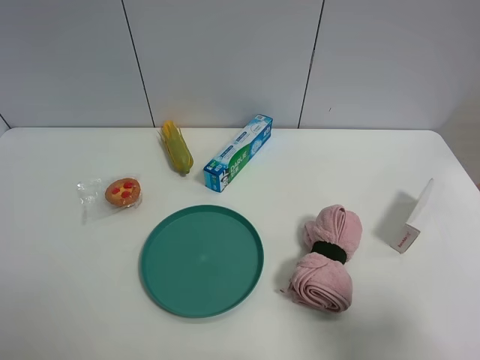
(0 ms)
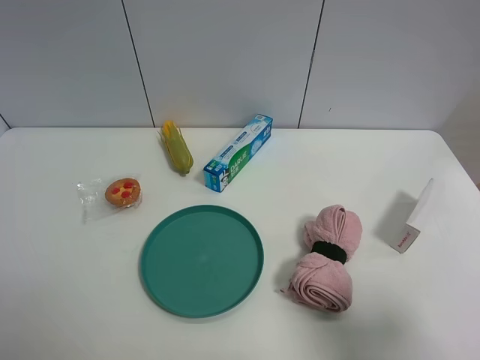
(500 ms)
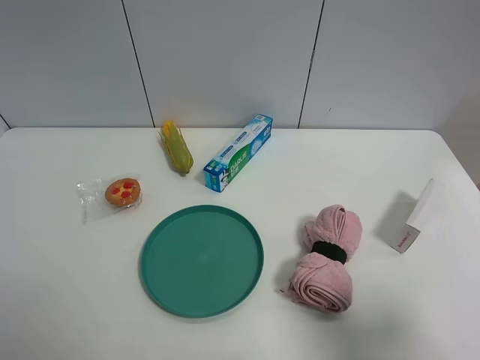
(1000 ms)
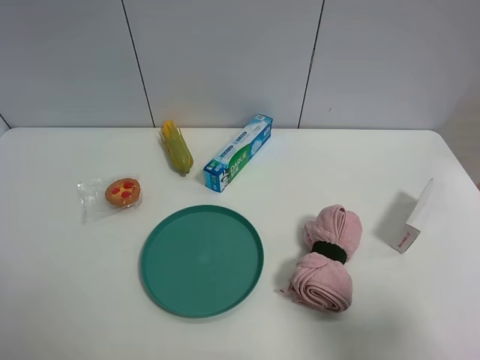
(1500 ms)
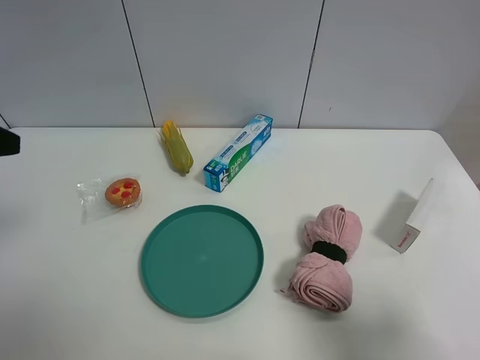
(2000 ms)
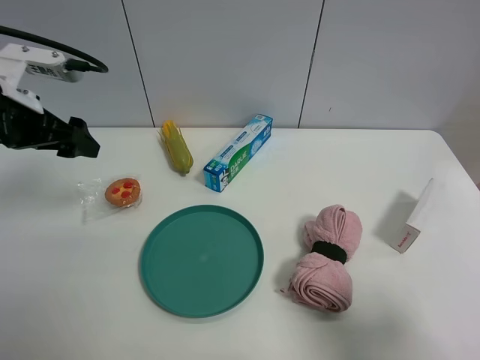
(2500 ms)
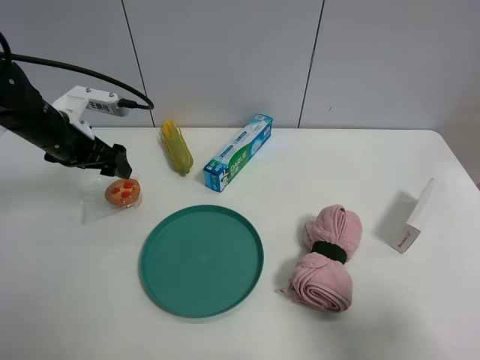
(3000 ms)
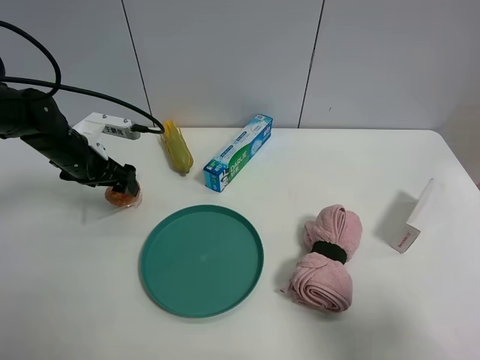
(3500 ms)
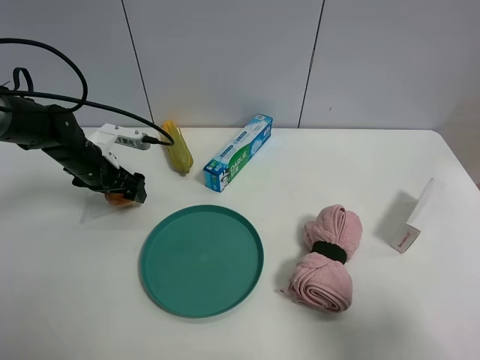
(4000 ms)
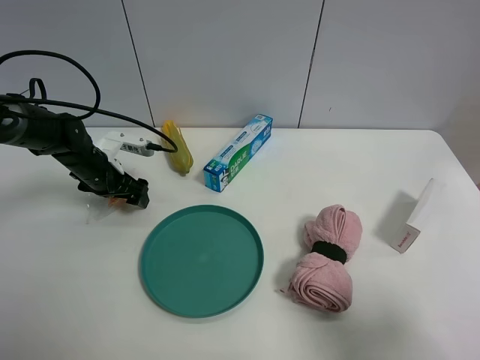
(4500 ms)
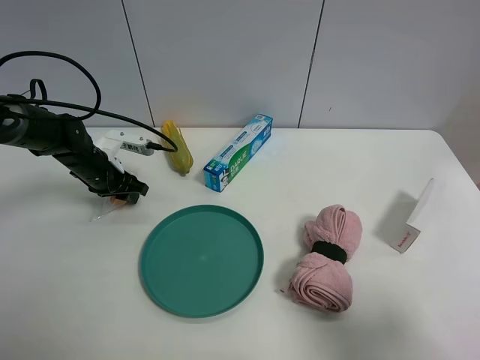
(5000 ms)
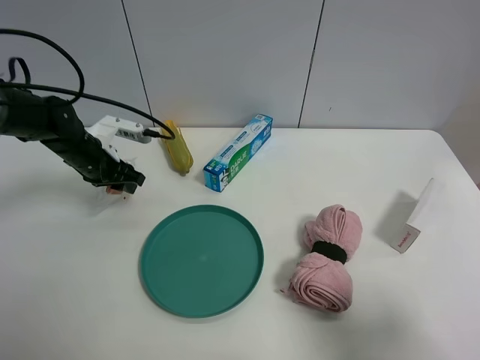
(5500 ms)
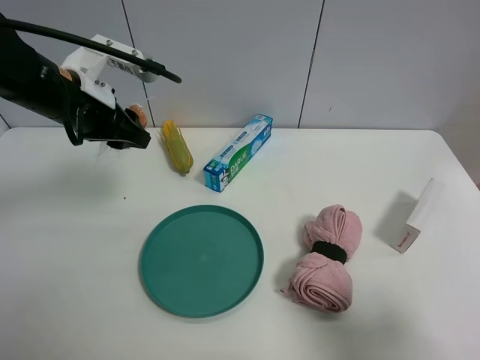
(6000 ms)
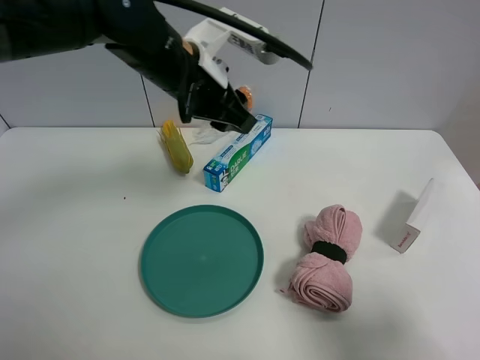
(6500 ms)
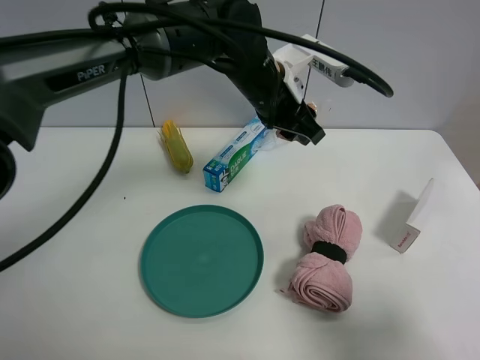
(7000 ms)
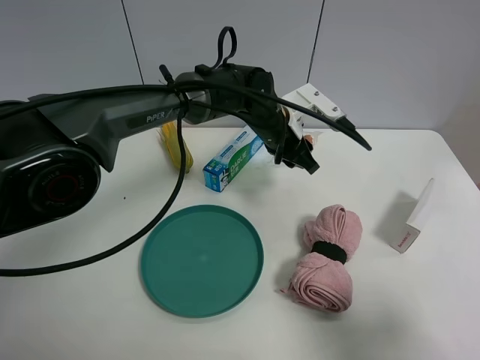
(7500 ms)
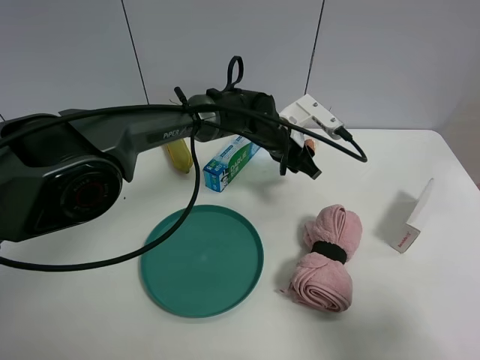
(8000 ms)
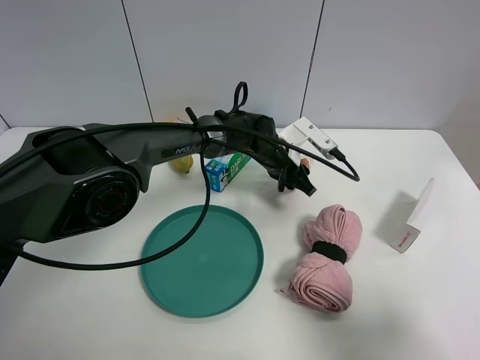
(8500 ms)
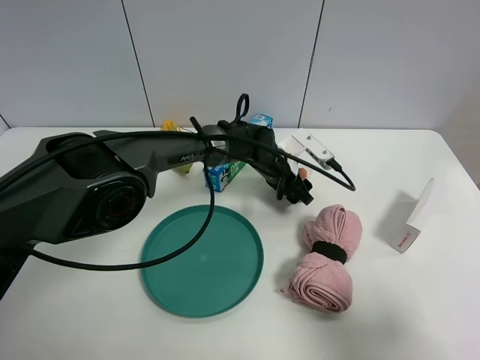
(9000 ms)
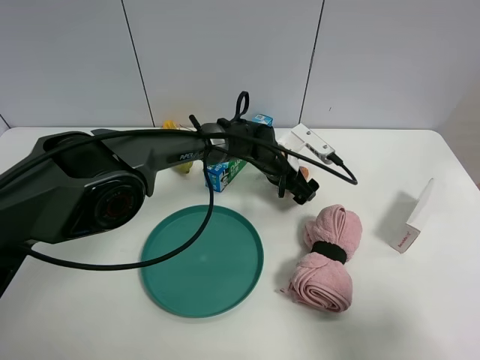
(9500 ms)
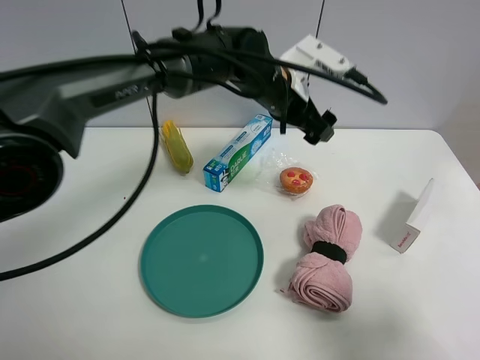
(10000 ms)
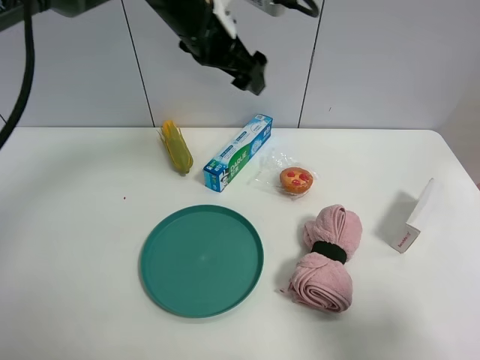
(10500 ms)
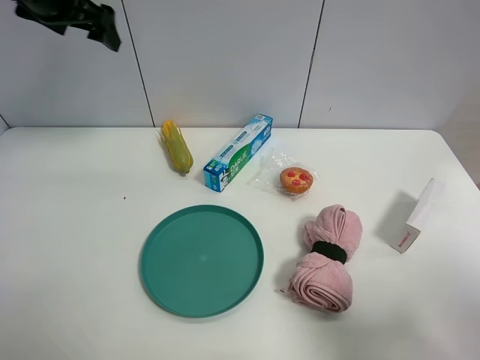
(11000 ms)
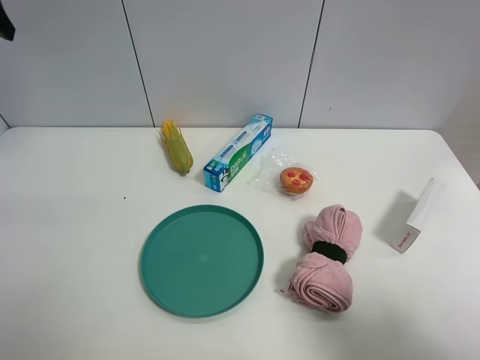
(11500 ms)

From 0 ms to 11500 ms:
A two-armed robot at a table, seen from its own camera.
Task of the whole recording: the gripper move the object.
Step, from 0 ms to 5000 ms: Grasp the egg tart with the left gripper.
Step, from 5500 ms to 9500 ms: Place the egg tart on the table with the left gripper.
From 2000 ms to 4000 ms: The left gripper heads downward and forward, covering roughly 30 cm.
From 4000 ms to 6000 ms: The left gripper moves upward, backward and to the right, roughly 20 cm, and closes.
From 6000 ms to 7500 ms: The left gripper moves to the right and downward, some 25 cm.
From 7500 ms to 9500 ms: The left gripper moves downward, about 10 cm, and opens its fingers.
From 9500 ms to 11500 ms: The left gripper heads to the left and upward, covering approximately 50 cm.

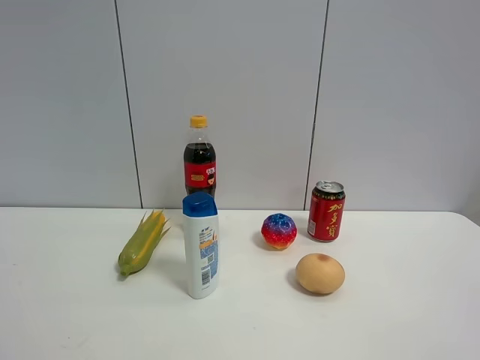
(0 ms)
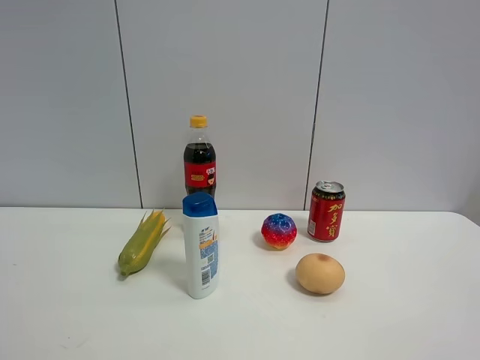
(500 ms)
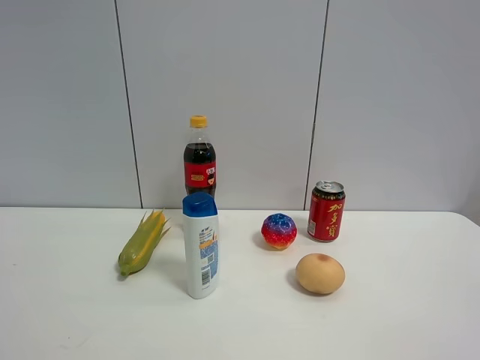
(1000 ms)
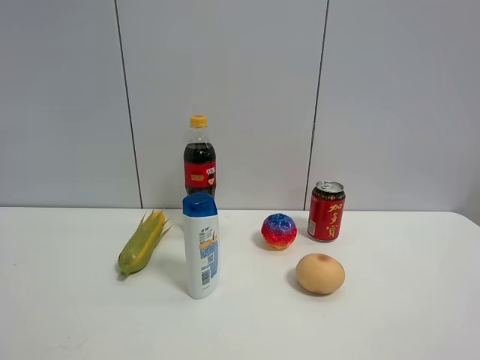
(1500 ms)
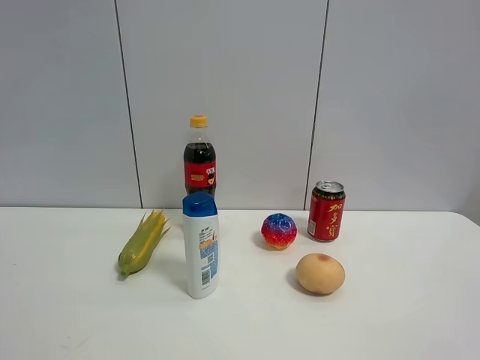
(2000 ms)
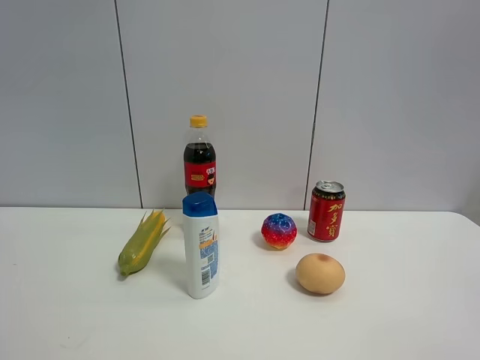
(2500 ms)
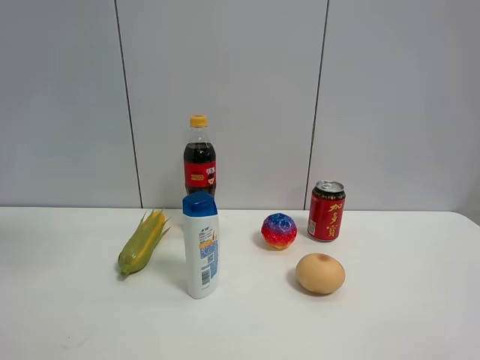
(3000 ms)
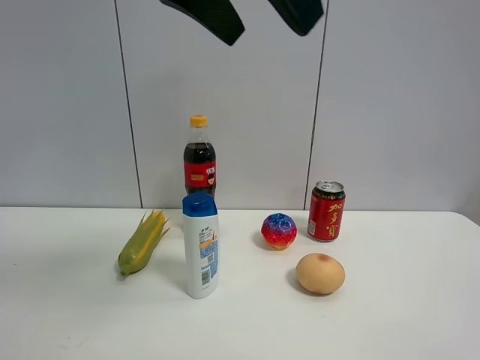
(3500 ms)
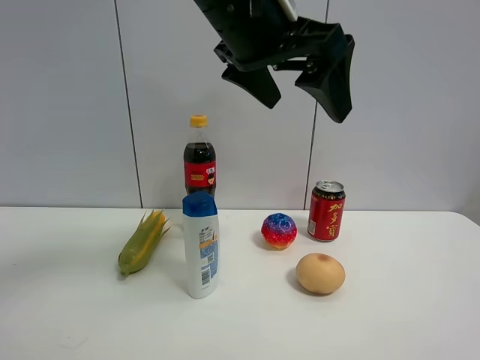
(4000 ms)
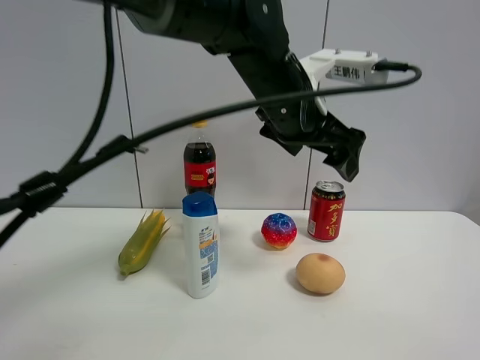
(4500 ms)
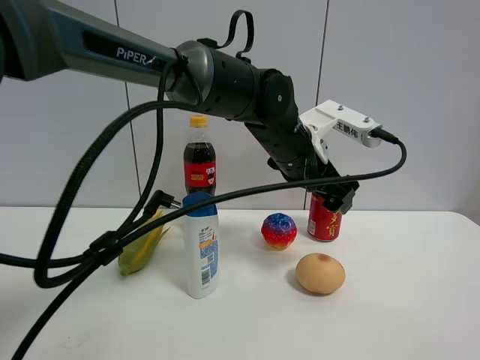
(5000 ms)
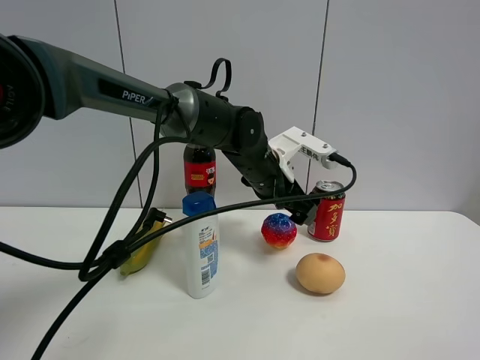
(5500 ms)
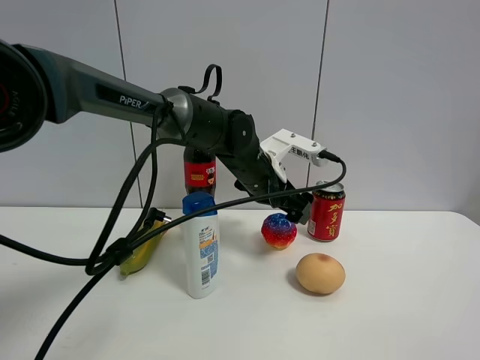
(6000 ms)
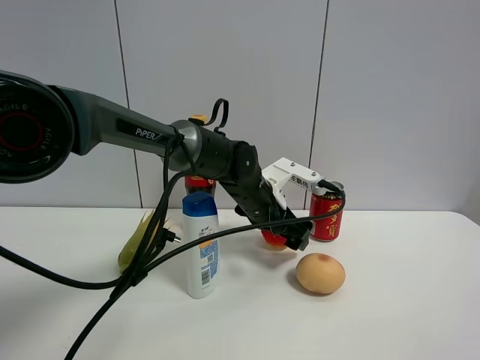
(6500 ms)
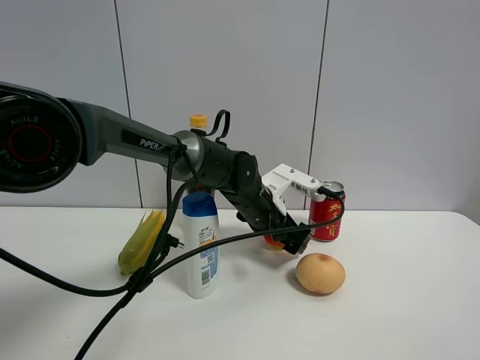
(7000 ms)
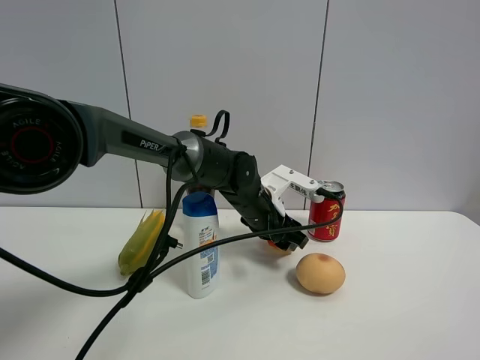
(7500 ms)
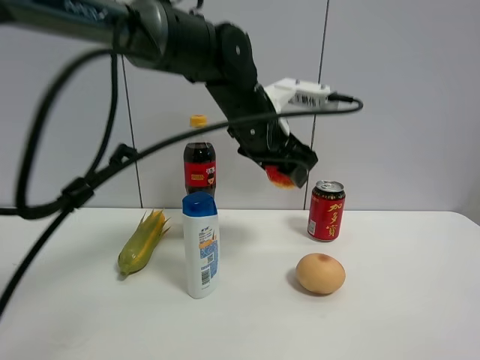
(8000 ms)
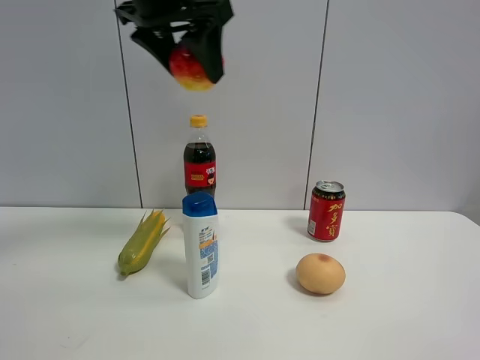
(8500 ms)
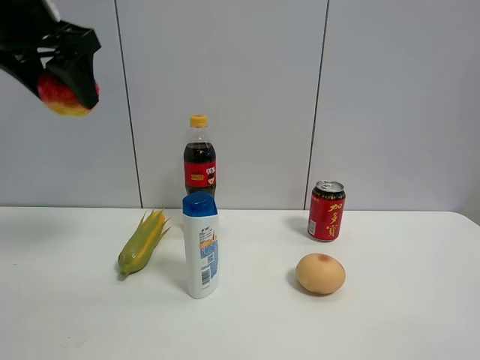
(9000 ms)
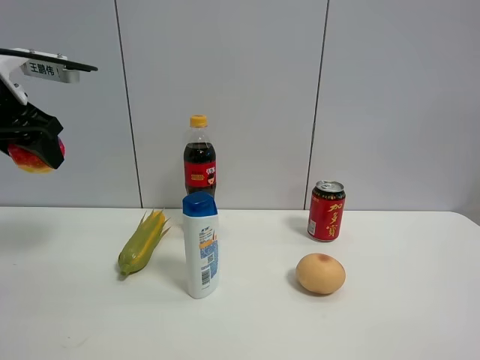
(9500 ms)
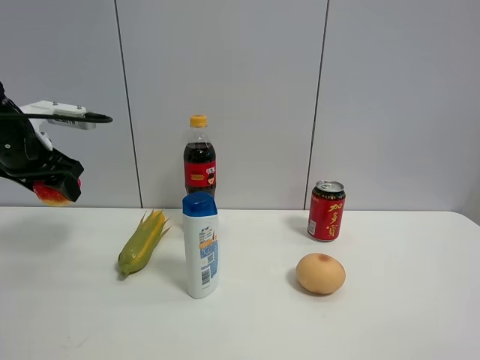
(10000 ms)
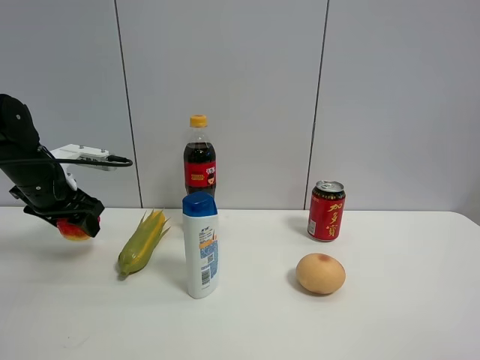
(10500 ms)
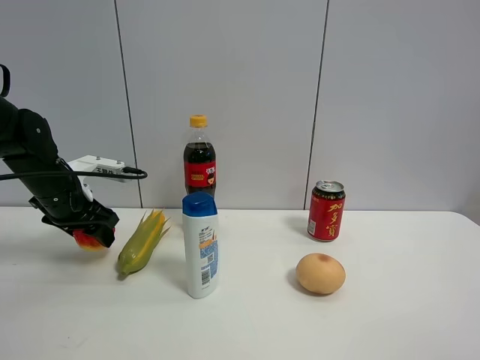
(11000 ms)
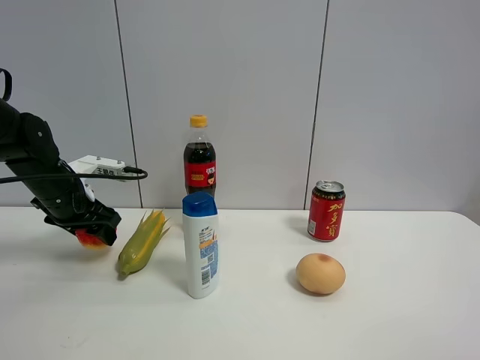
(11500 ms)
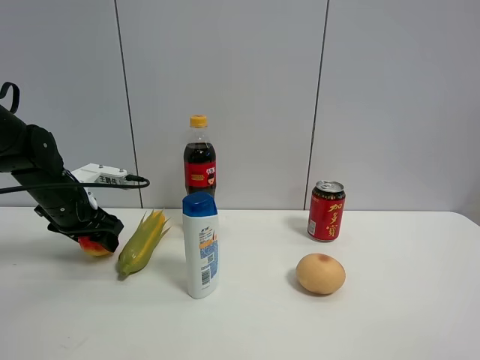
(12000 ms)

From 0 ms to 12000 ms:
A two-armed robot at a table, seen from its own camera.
Task of the whole recording: the gripper move the object.
Step, from 0 ms to 7000 ms: Grasp the colorful ball with the left gripper.
From 2000 ms to 4000 ms: The left gripper moves to the right and forward, some 35 cm.
From 4000 ms to 6000 ms: The left gripper travels downward and forward by roughly 25 cm.
From 6000 ms to 8000 ms: The left gripper moves upward, approximately 10 cm, and closes its fingers.
From 8000 ms to 10000 ms: The left gripper is displaced to the left by approximately 35 cm.
From 10000 ms to 12000 ms: The left gripper shifts approximately 10 cm downward.

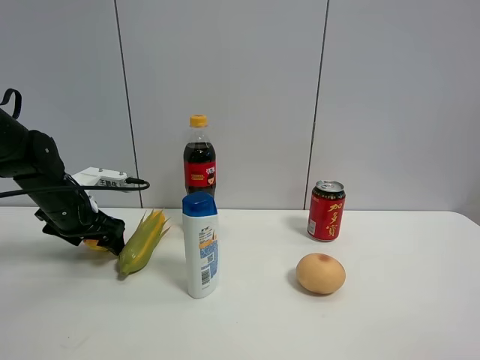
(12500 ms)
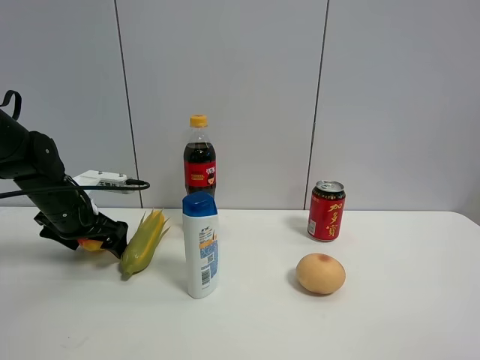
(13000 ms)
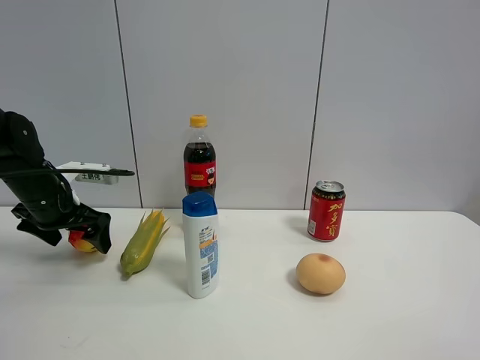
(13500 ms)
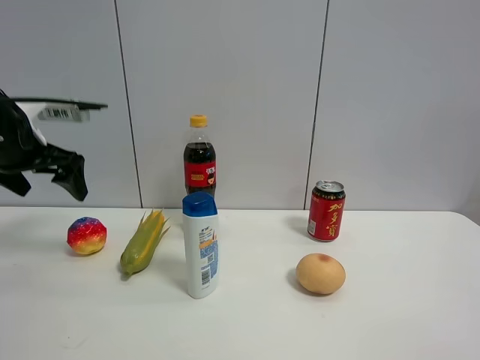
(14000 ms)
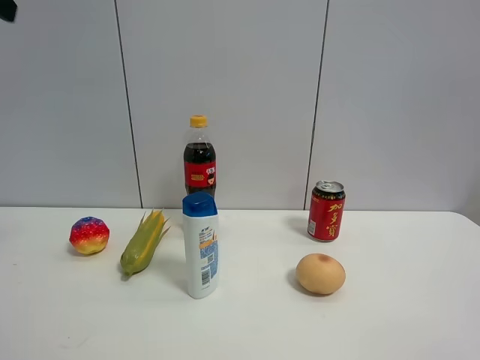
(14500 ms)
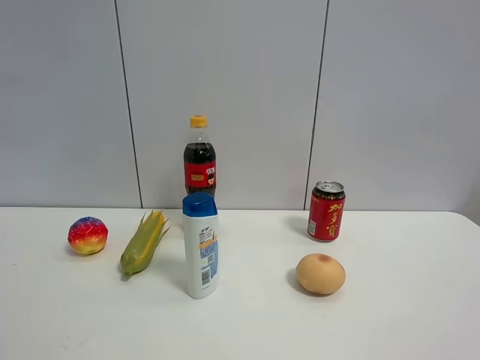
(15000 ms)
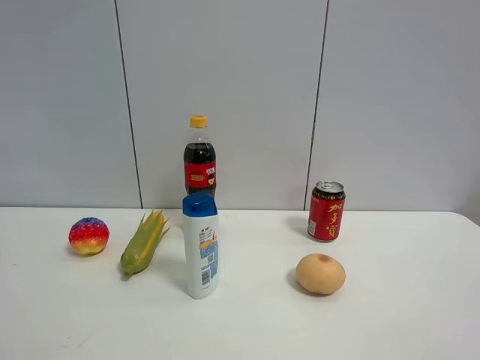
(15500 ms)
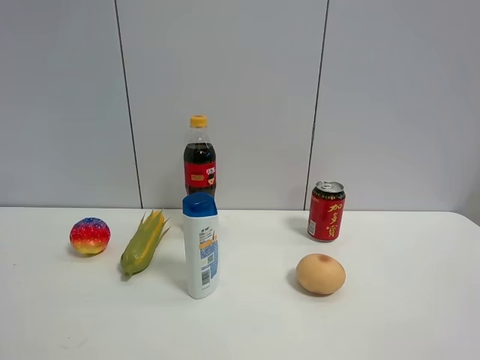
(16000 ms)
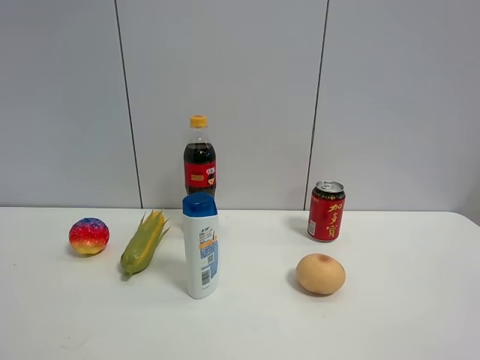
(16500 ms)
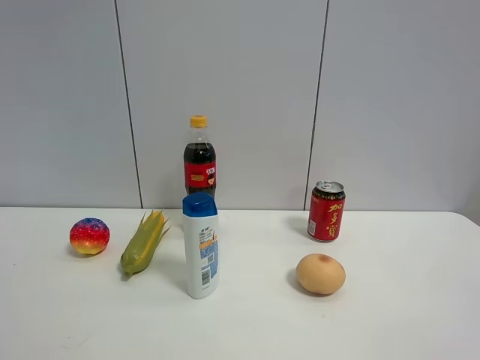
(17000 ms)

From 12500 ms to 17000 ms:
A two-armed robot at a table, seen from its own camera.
Task of the whole recording: the gripper move the object.
From 12500 ms to 14500 ms: The left gripper travels upward and backward by roughly 35 cm.
